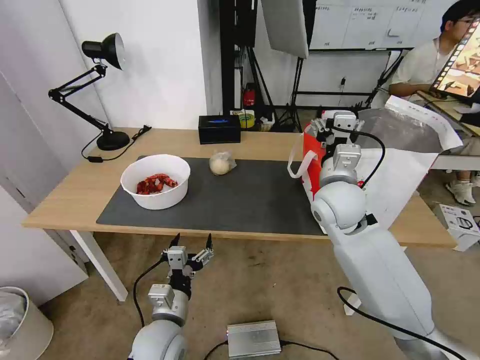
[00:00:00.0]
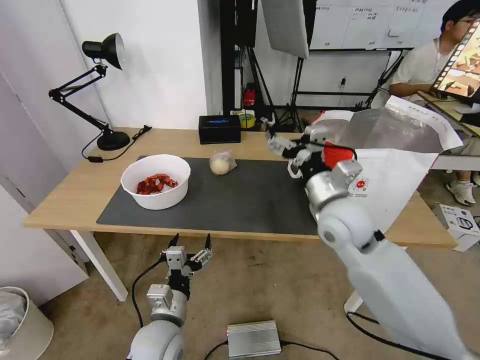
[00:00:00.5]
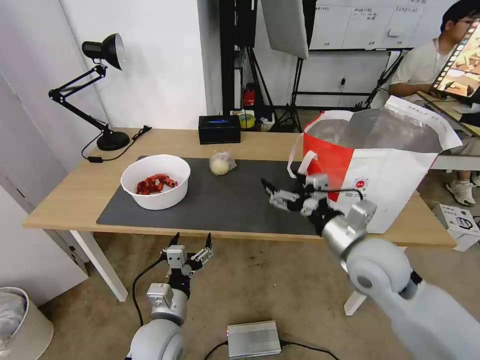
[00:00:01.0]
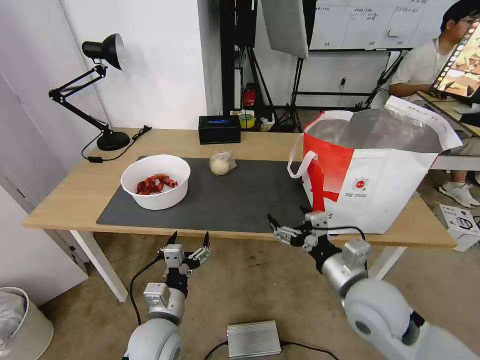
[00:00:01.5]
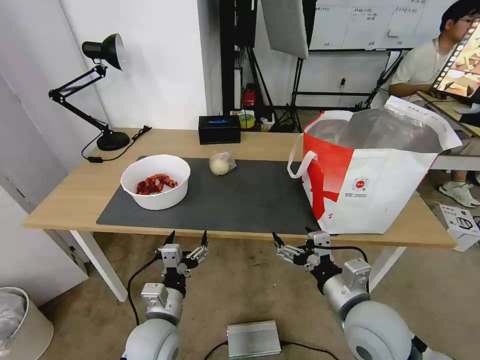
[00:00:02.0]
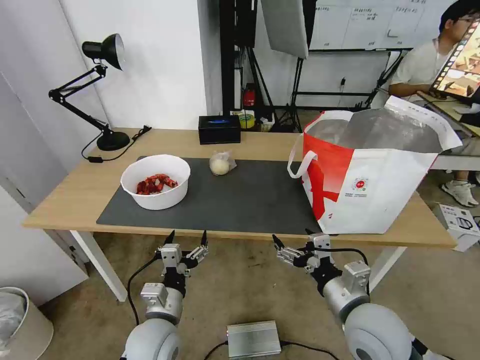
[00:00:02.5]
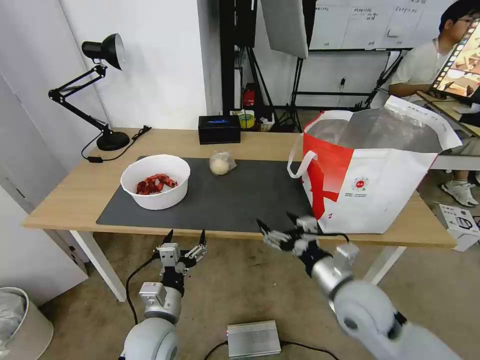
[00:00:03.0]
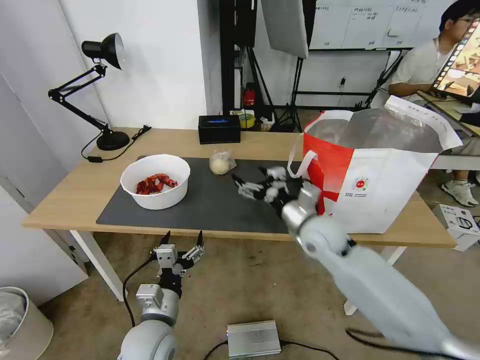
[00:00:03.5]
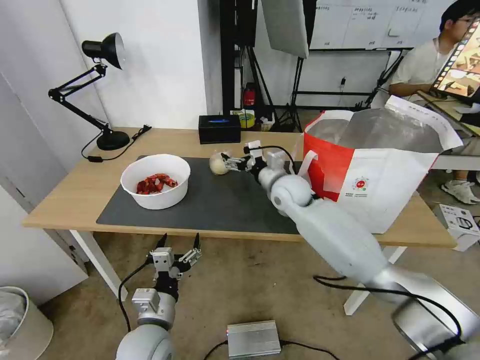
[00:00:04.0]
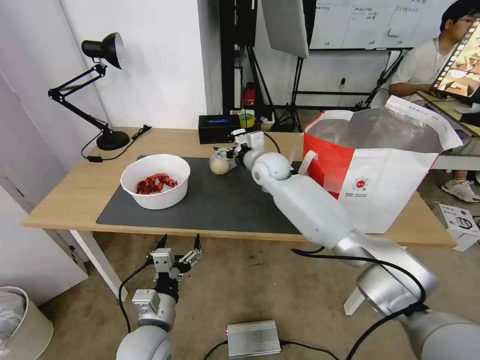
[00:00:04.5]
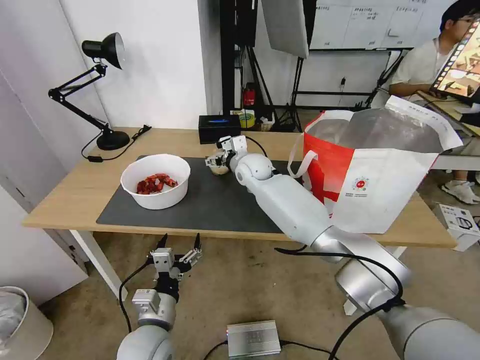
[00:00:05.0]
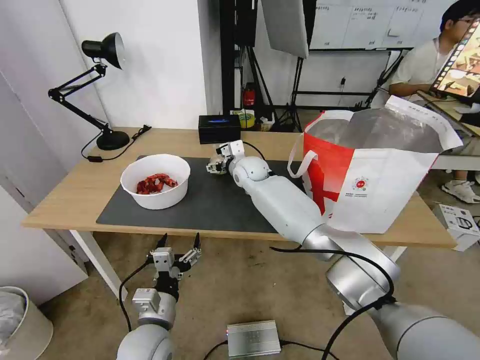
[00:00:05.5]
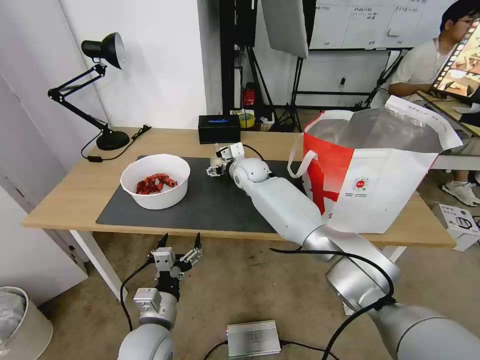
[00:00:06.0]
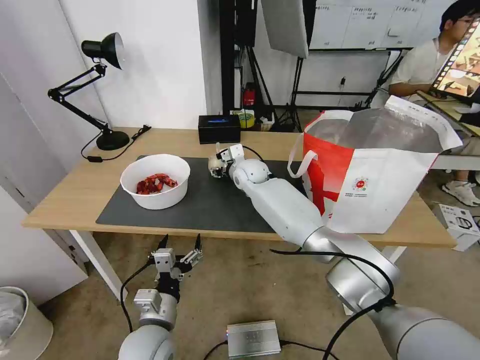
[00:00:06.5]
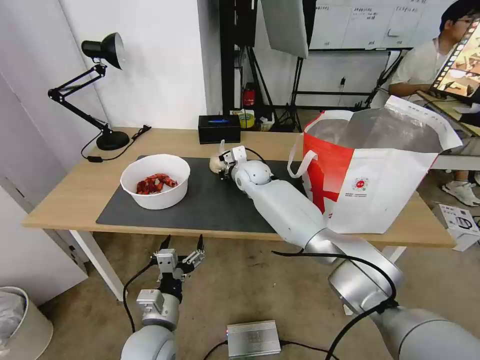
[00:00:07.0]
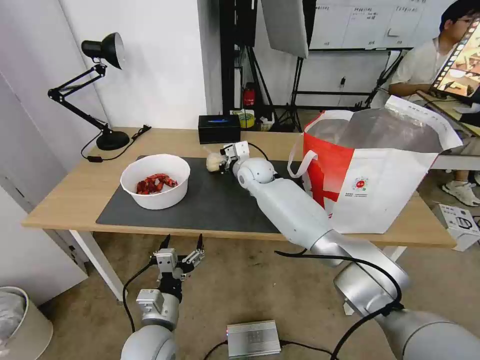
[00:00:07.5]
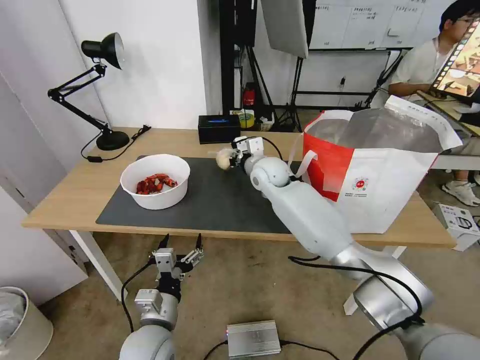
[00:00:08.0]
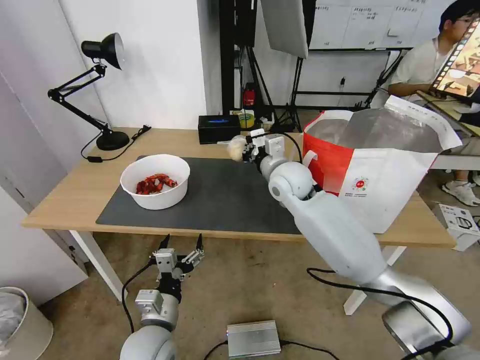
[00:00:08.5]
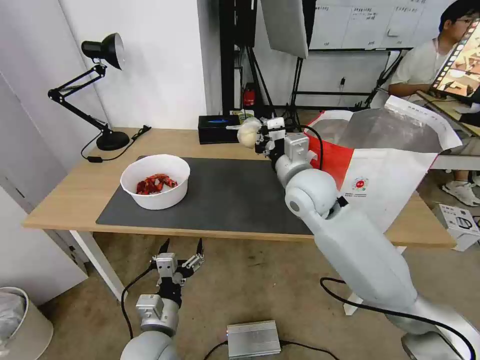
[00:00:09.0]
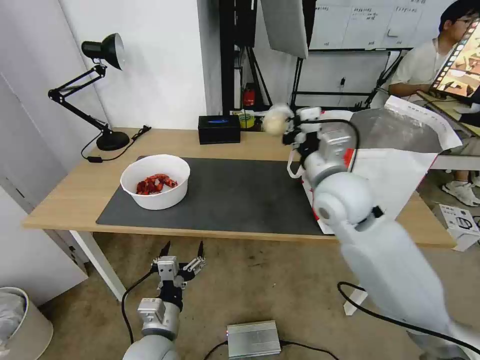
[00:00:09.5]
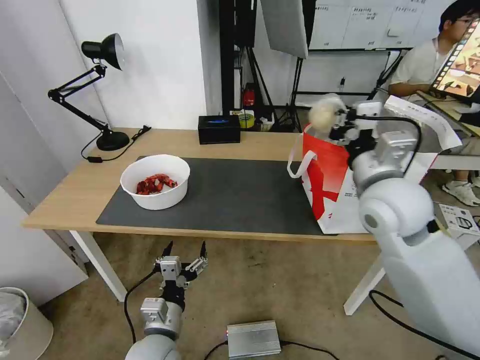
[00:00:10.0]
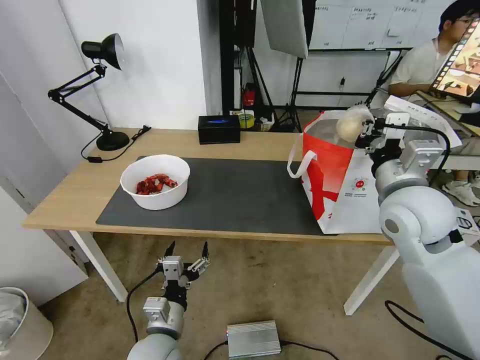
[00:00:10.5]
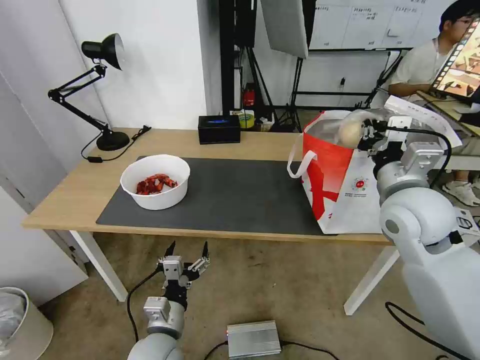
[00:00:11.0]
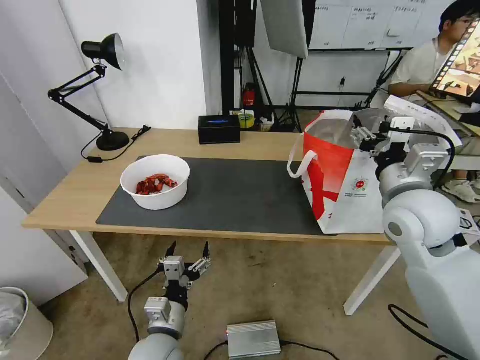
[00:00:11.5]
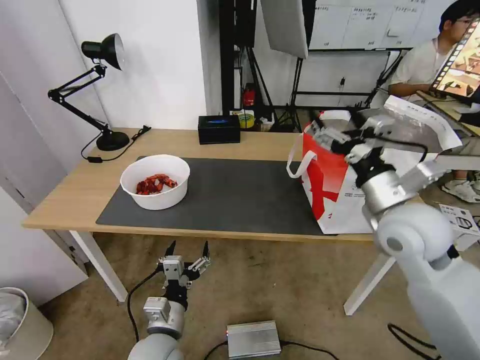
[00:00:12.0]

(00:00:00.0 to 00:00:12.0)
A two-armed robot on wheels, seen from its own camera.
Task of the whole recording: Pick up the trash from the table and place it into the takeout bag.
00:00:00.0 - 00:00:02.0: The right gripper goes about 20 cm backward and downward.
00:00:02.0 - 00:00:04.0: The right gripper goes approximately 30 cm forward.
00:00:04.0 - 00:00:06.0: The right gripper goes approximately 10 cm to the left and forward.
00:00:06.0 - 00:00:08.0: The right gripper moves roughly 5 cm, and closes up.
00:00:08.0 - 00:00:10.0: The right gripper is displaced backward, to the right and upward by about 30 cm.
00:00:10.0 - 00:00:12.0: The right gripper shifts by approximately 5 cm, and opens its fingers.

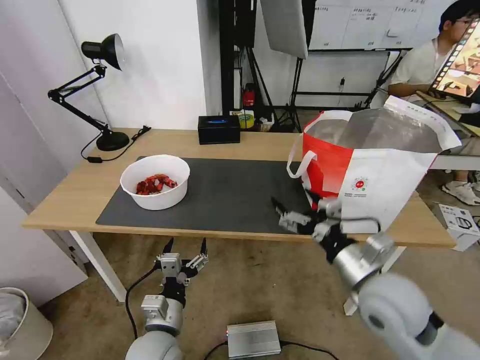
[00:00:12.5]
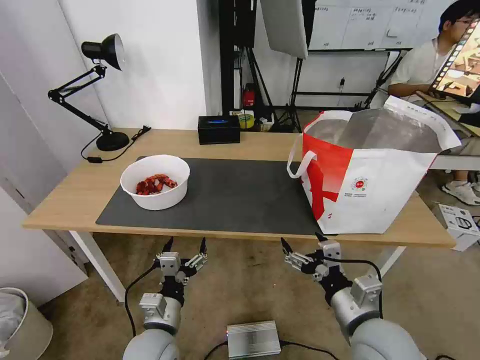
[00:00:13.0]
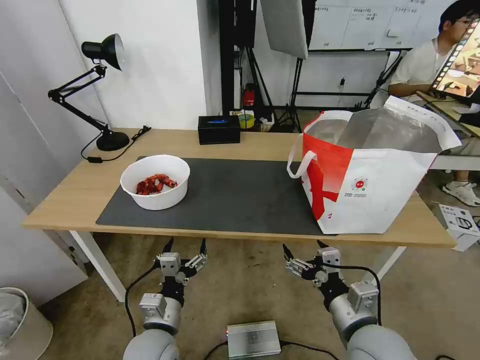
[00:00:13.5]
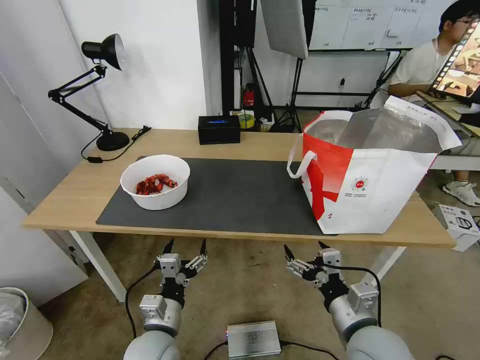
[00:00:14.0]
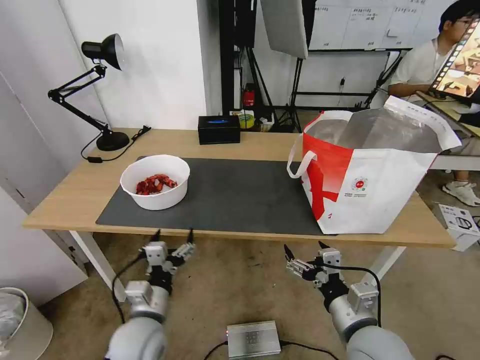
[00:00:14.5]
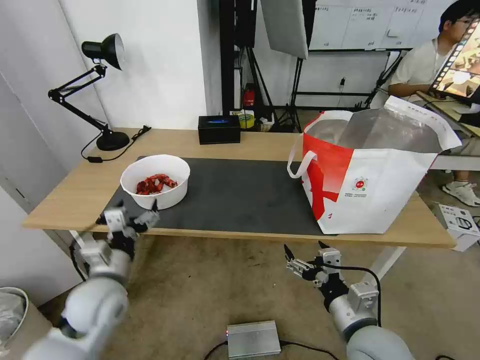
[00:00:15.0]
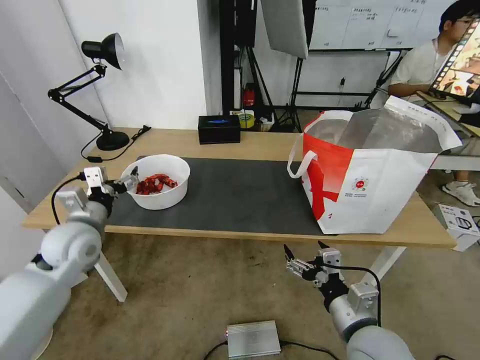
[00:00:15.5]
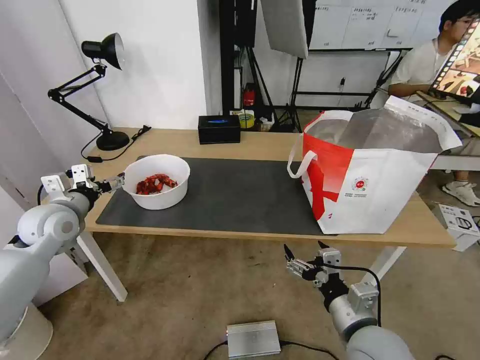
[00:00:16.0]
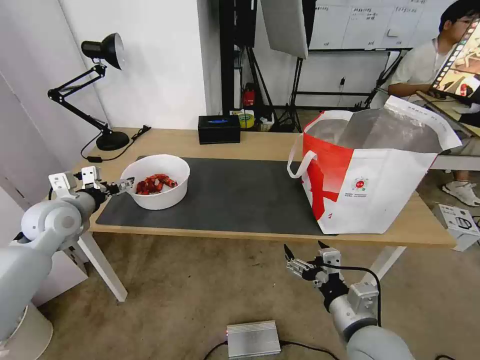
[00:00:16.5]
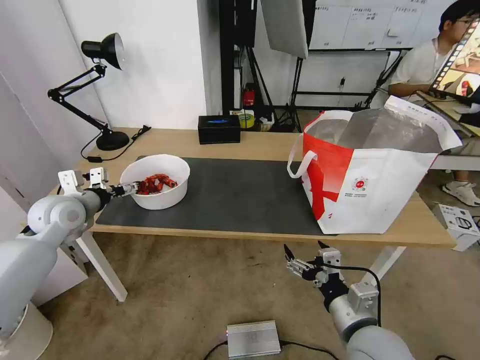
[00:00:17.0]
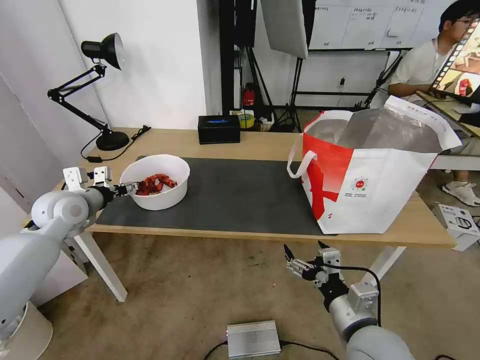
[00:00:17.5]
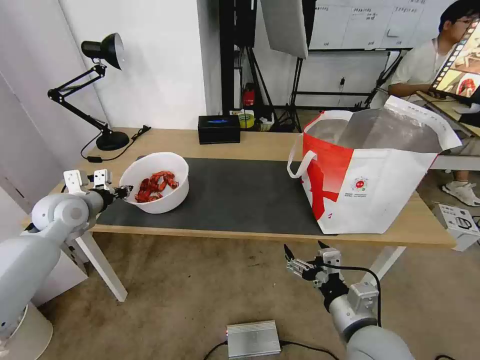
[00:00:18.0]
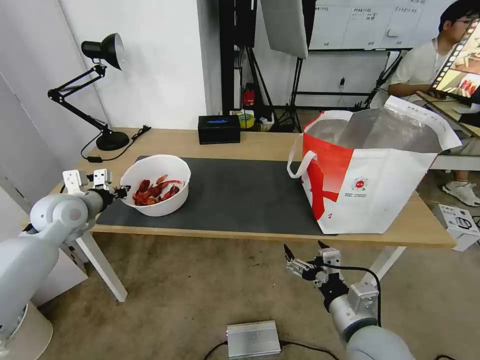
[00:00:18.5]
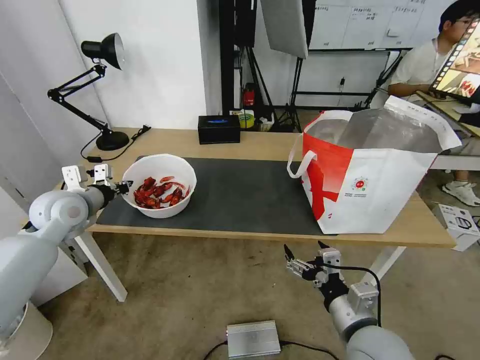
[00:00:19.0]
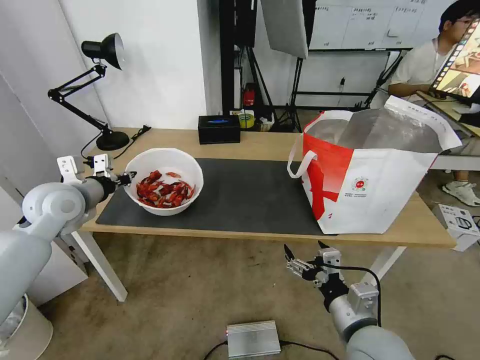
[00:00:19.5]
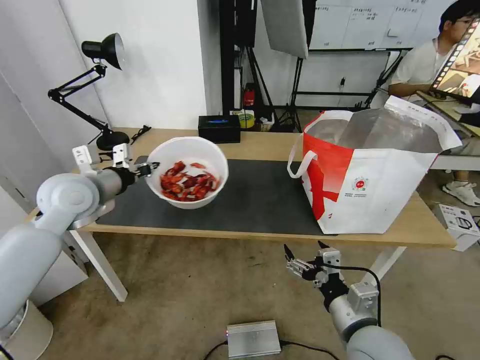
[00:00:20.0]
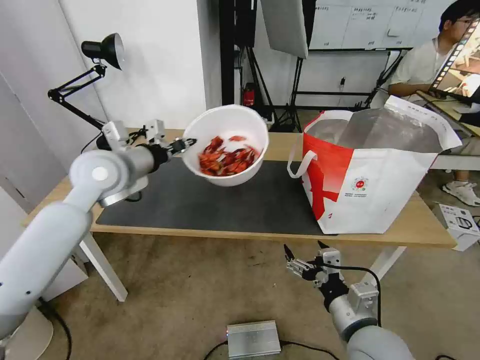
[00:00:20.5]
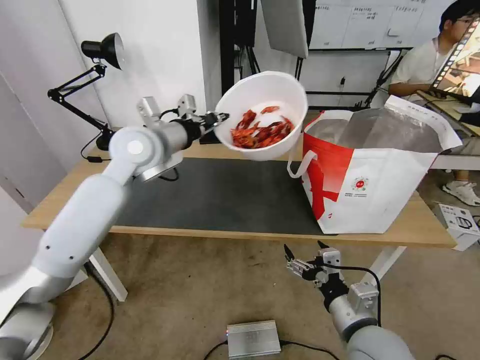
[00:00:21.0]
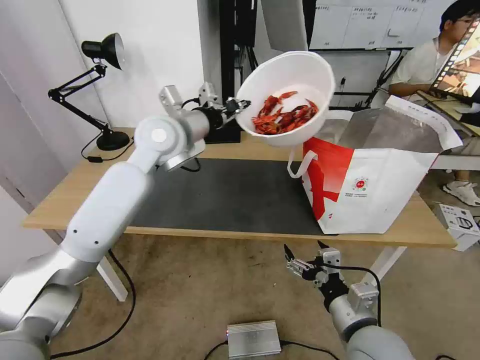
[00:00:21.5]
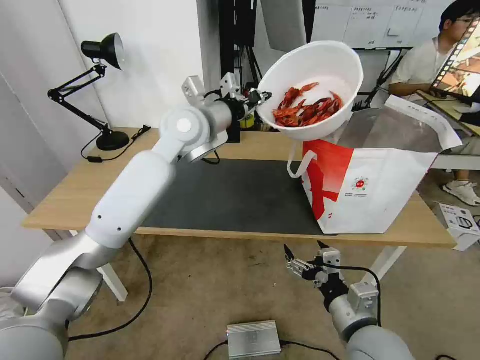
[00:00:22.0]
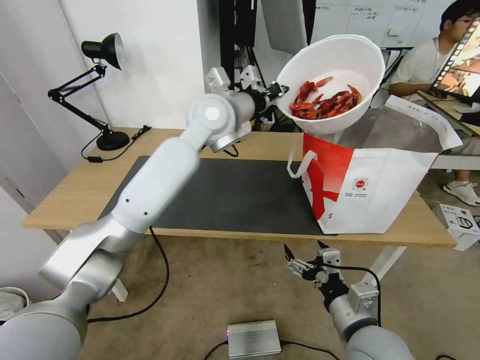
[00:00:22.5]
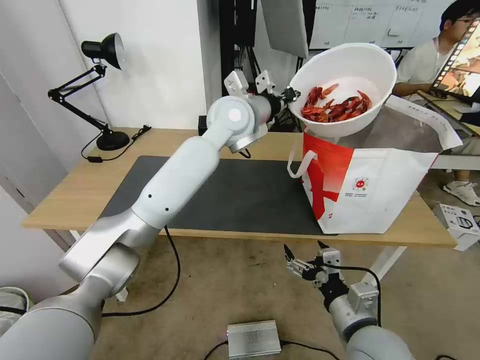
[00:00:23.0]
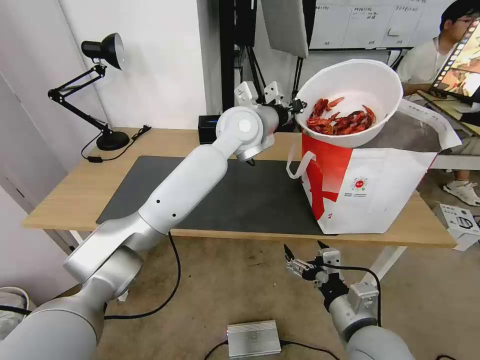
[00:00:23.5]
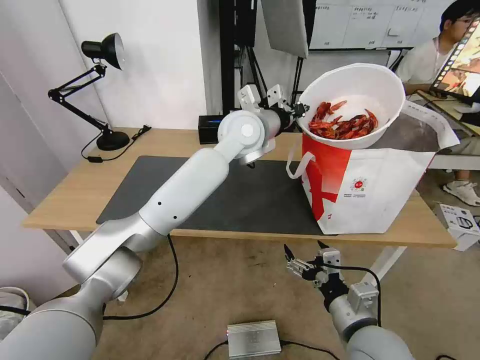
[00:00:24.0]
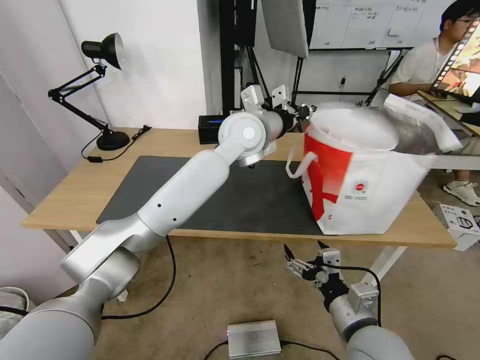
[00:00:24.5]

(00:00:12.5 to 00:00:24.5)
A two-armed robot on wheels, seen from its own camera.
Task of the whole recording: Pick up the trash from the table and place it into the takeout bag.
00:00:12.5 - 00:00:14.5: The right gripper is displaced downward and backward by about 10 cm.
00:00:14.5 - 00:00:16.5: The left gripper shifts some 30 cm to the left, forward and upward.
00:00:16.5 - 00:00:18.5: The left gripper closes up.
00:00:18.5 - 00:00:20.5: The left gripper shifts some 15 cm to the right and upward.
00:00:20.5 - 00:00:22.5: The left gripper heads to the right, covering some 20 cm.
00:00:22.5 - 00:00:24.5: The left gripper moves to the right, approximately 5 cm.

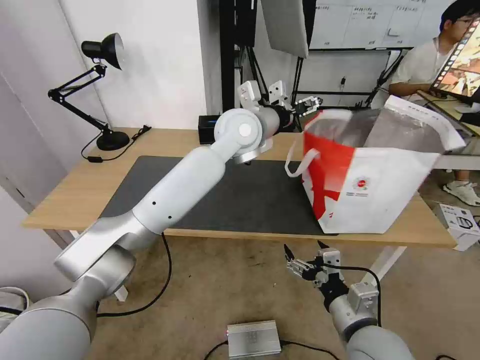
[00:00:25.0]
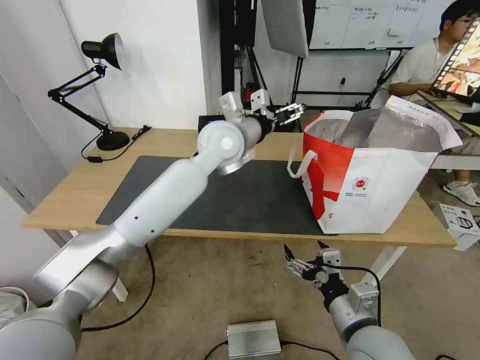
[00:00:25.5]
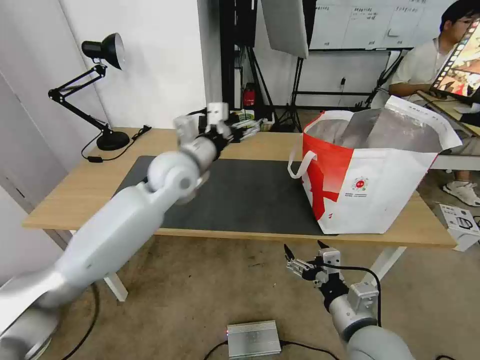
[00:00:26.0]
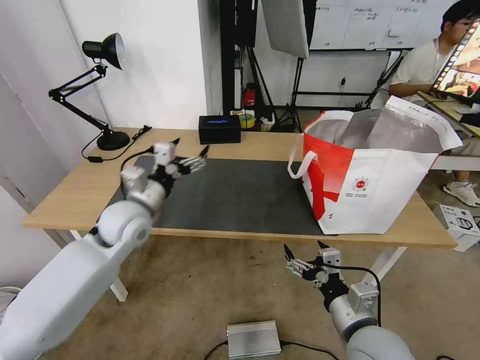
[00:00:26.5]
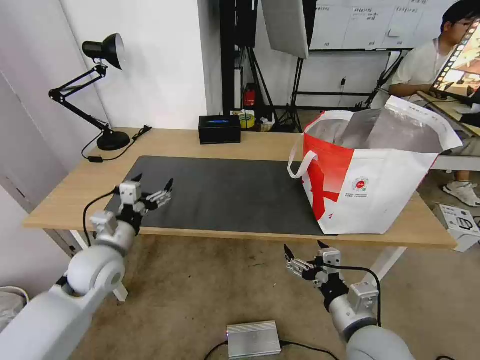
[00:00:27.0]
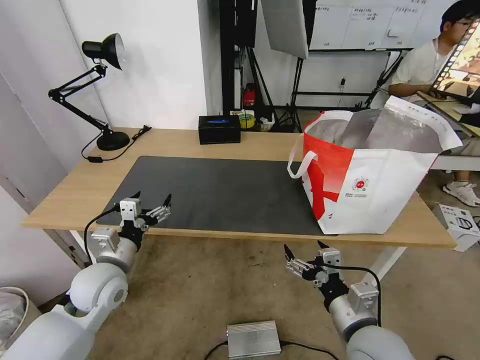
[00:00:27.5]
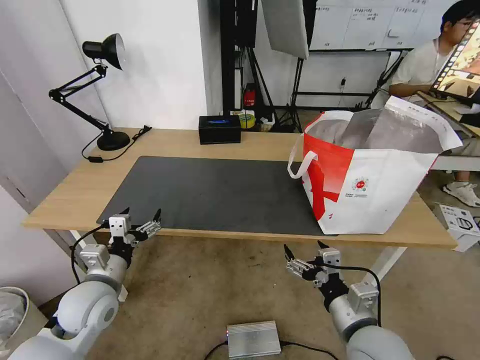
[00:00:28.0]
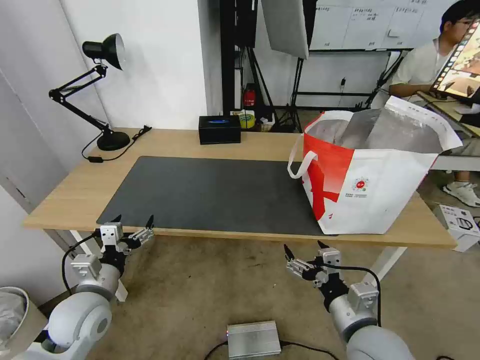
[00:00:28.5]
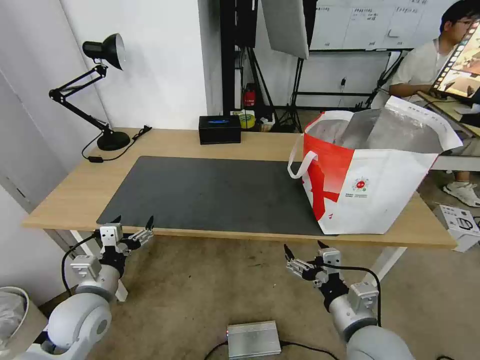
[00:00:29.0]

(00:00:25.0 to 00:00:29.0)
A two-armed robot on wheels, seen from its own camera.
Task of the whole recording: Pick up the trash from the table and place it into the takeout bag.
00:00:25.0 - 00:00:27.0: The left gripper shifts some 40 cm to the left, downward and backward.
00:00:27.0 - 00:00:29.0: The left gripper moves backward, about 10 cm.
